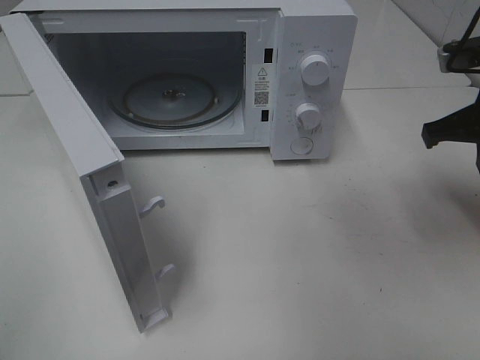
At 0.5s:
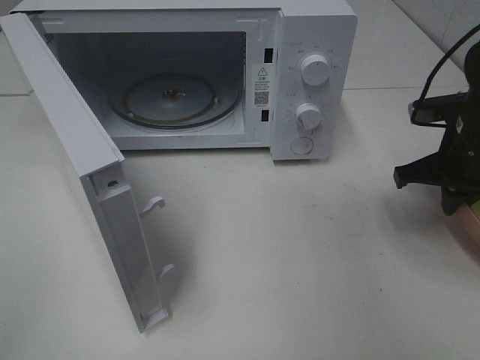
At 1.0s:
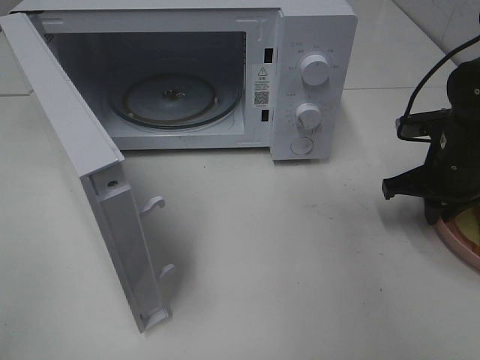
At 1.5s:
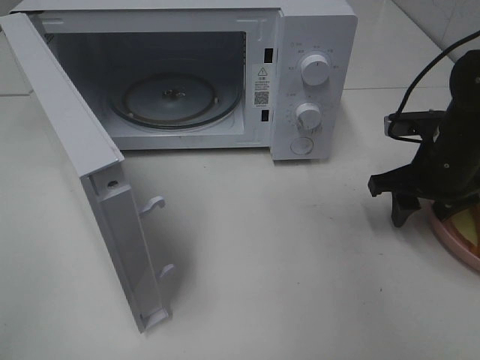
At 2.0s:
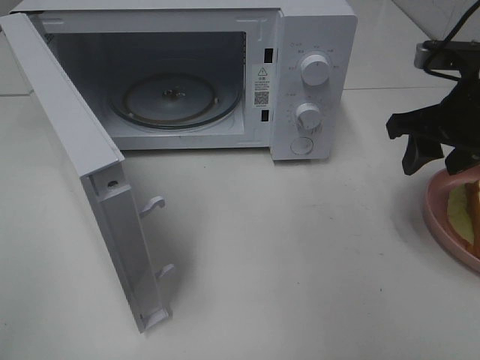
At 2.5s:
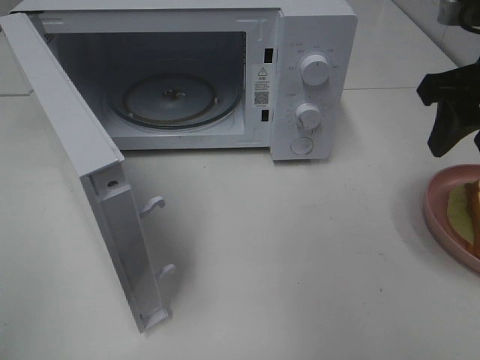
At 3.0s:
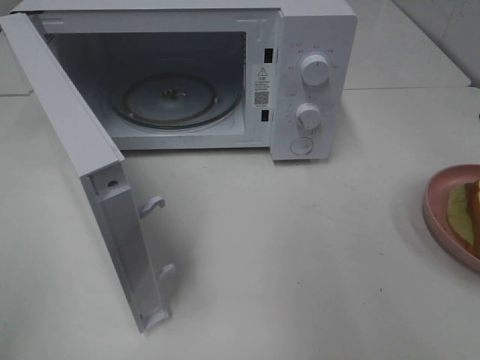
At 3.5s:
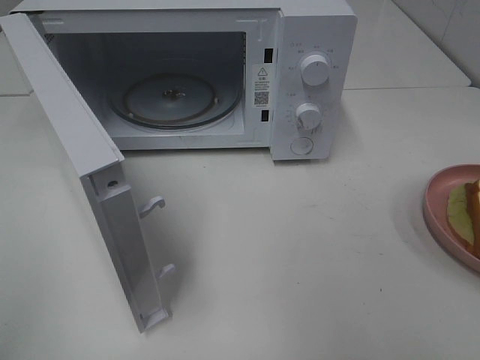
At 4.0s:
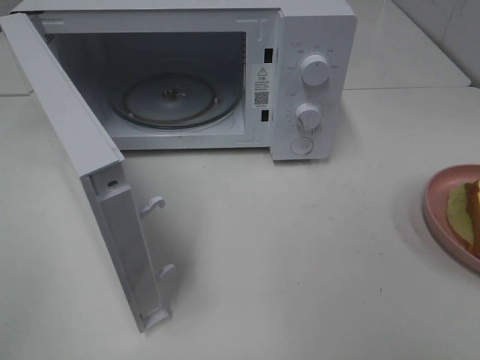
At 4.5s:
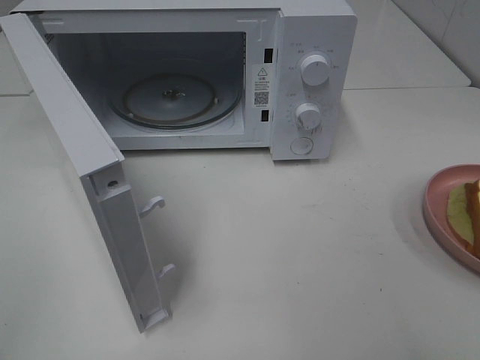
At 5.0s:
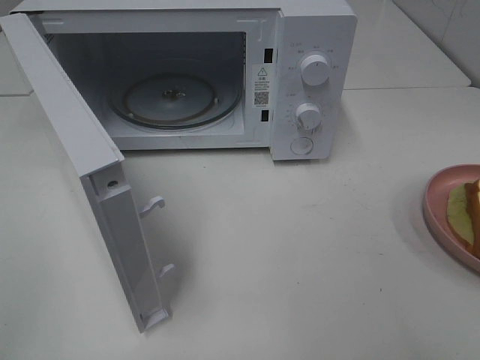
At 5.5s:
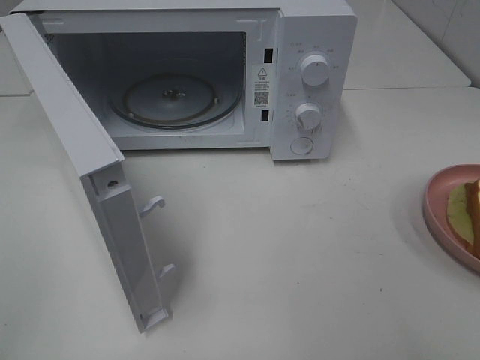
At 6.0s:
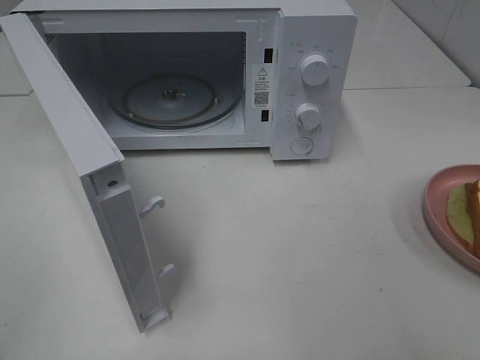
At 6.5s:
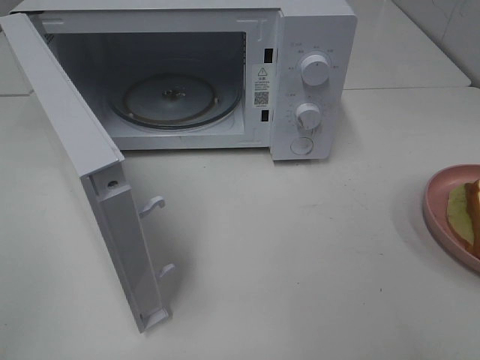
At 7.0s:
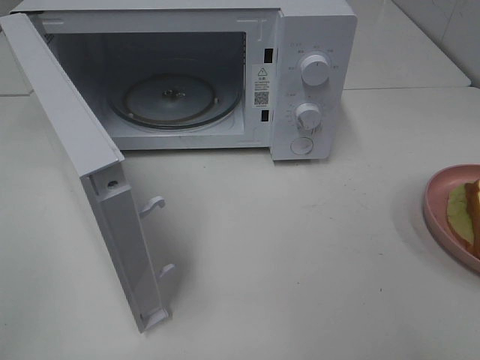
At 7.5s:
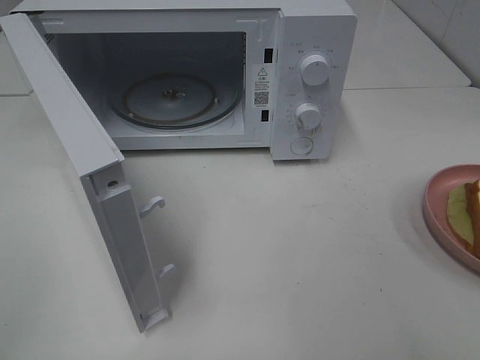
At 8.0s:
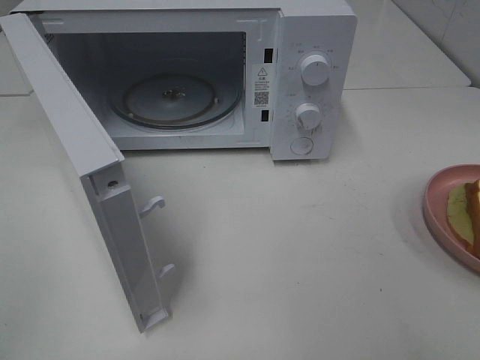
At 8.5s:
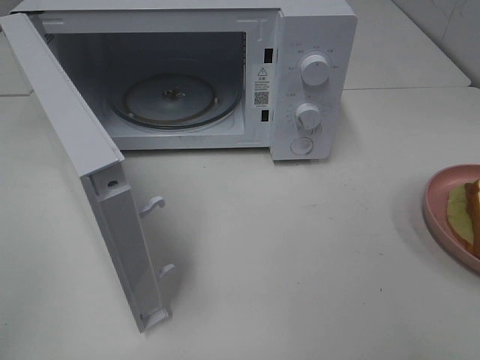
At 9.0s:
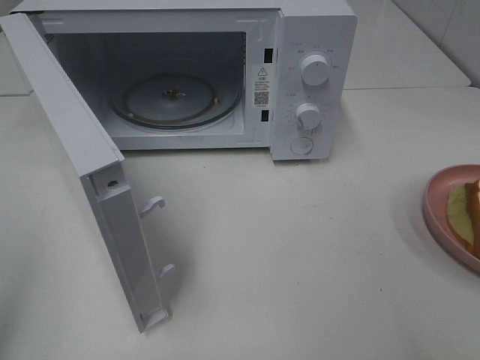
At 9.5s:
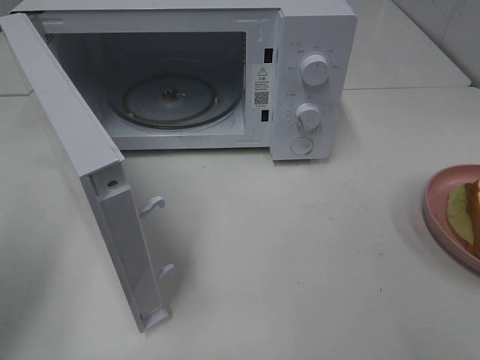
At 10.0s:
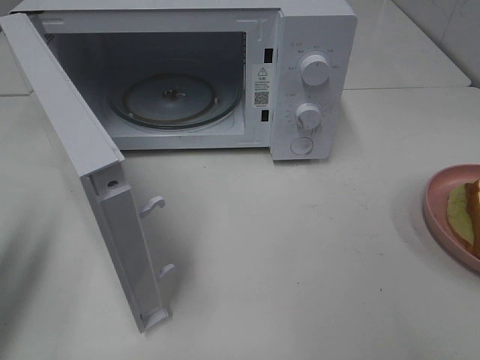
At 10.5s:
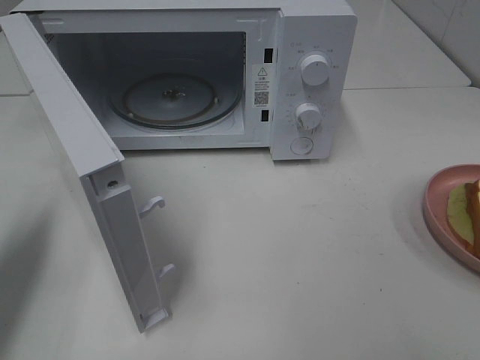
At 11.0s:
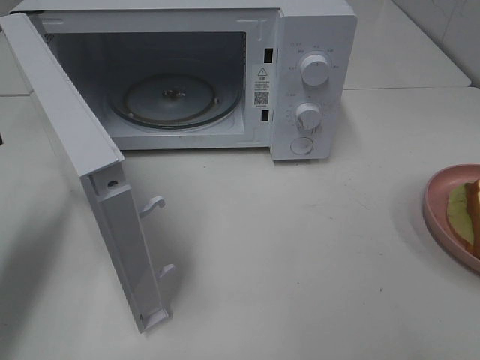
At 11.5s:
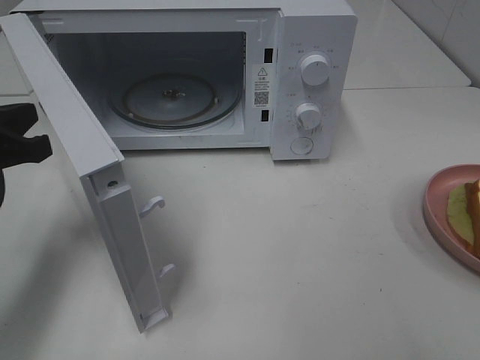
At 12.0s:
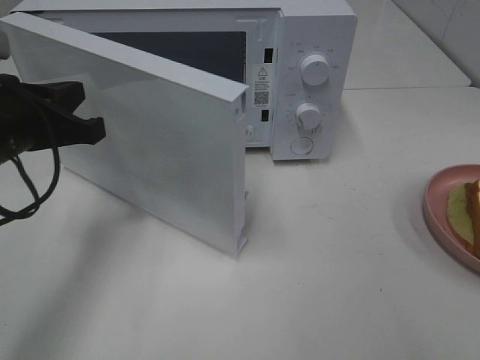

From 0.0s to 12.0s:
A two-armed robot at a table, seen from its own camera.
Task of the whole recording: Heat Sandwich.
Step, from 0.0s to 2.0s: Right hand: place the plate on the table.
From 0.0s to 2.0s: The right gripper goes downward and returns, roughly 10 cm each way, and opens.
From 2.0s to 4.0s: The right gripper goes some 25 cm backward.
From 6.0s to 8.0s: Both grippers stay about where they are.
From 8.0s to 10.0s: The left gripper heads forward, covering roughly 15 cm, and closes its fingers.
From 10.0s to 12.0s: The left gripper is displaced to the right, forward and downward by approximately 15 cm, and closes its fingers.

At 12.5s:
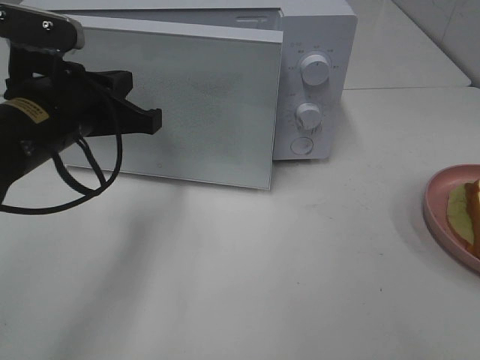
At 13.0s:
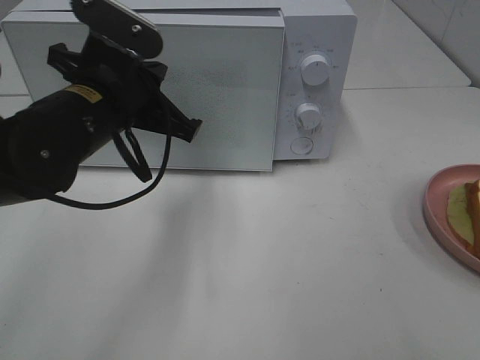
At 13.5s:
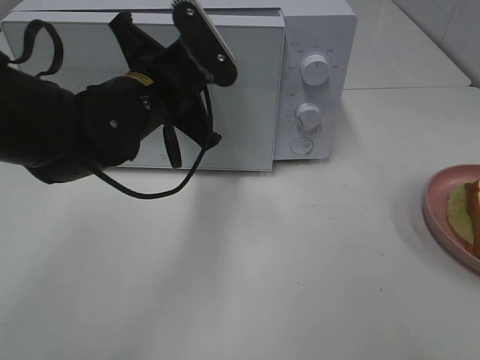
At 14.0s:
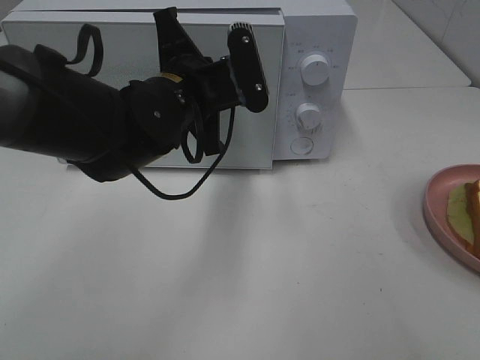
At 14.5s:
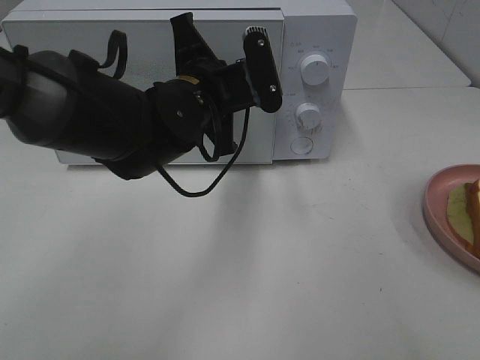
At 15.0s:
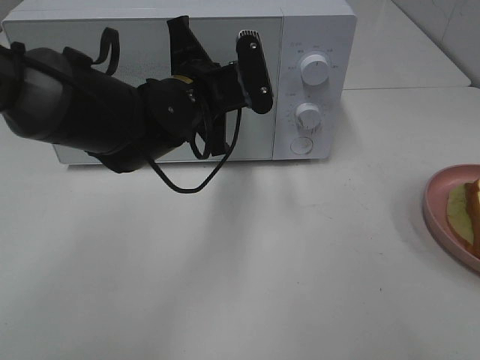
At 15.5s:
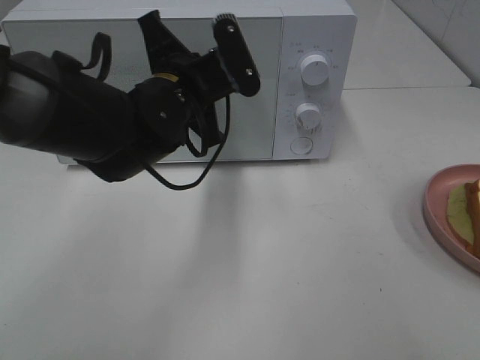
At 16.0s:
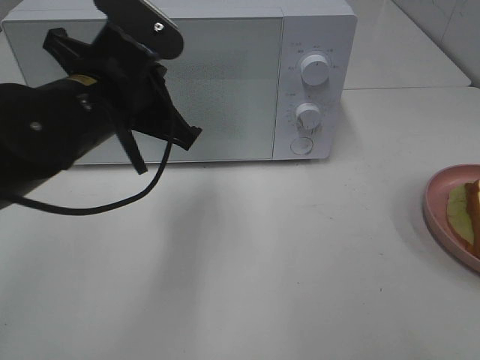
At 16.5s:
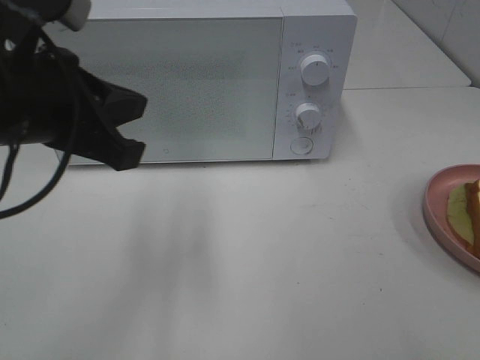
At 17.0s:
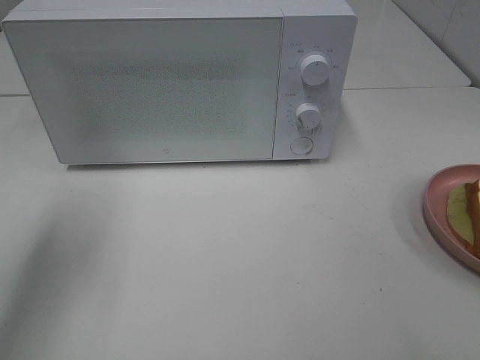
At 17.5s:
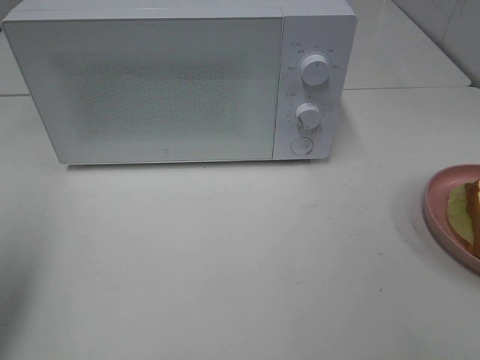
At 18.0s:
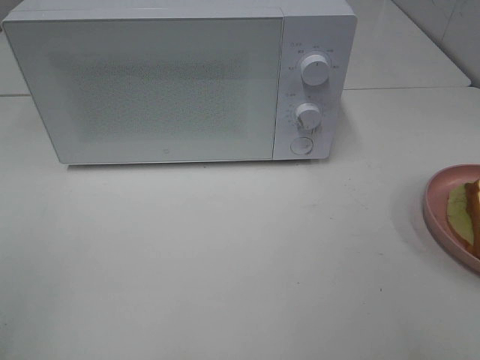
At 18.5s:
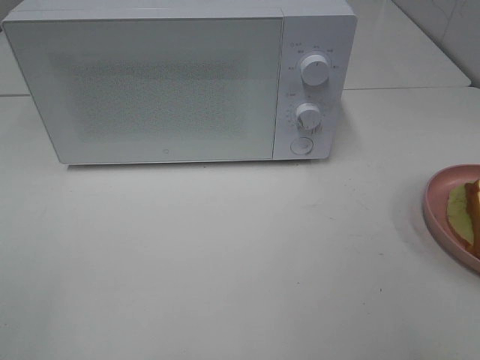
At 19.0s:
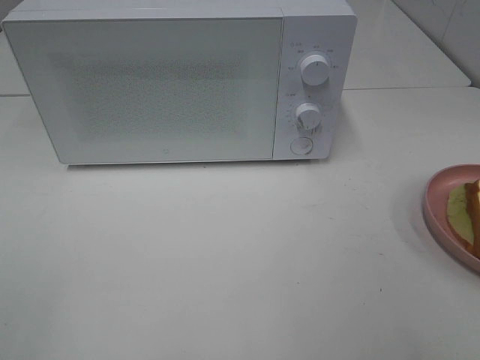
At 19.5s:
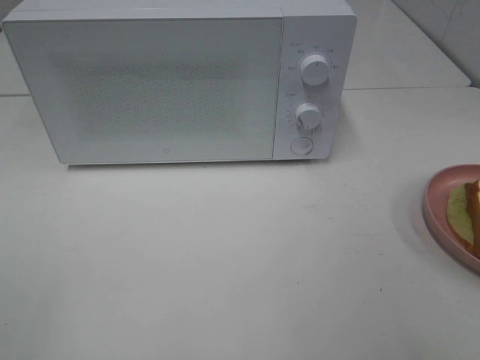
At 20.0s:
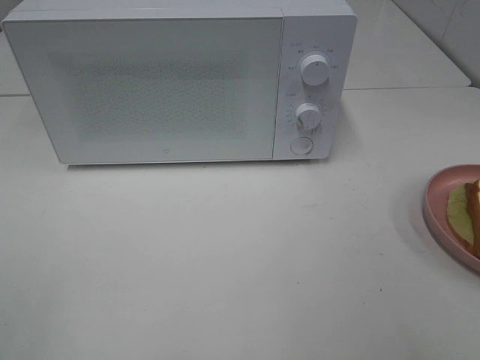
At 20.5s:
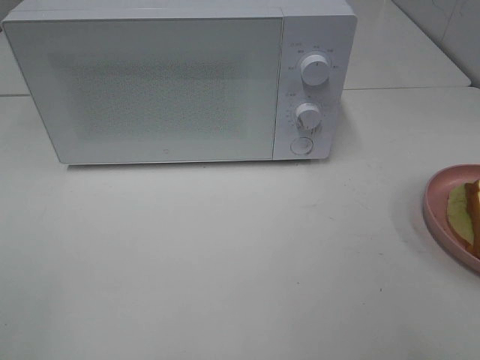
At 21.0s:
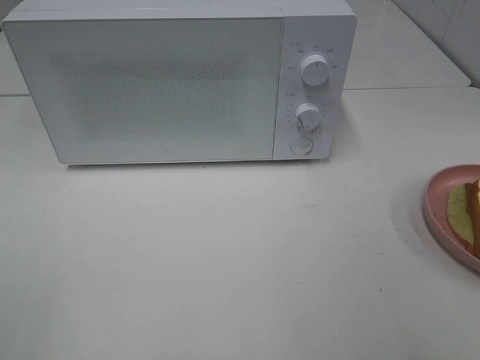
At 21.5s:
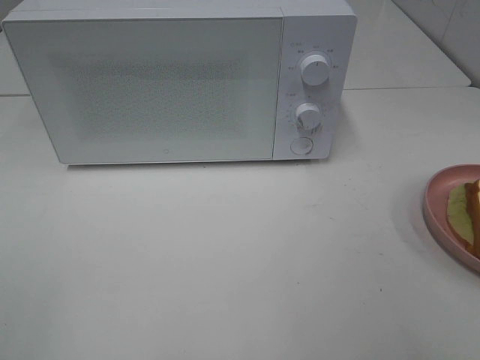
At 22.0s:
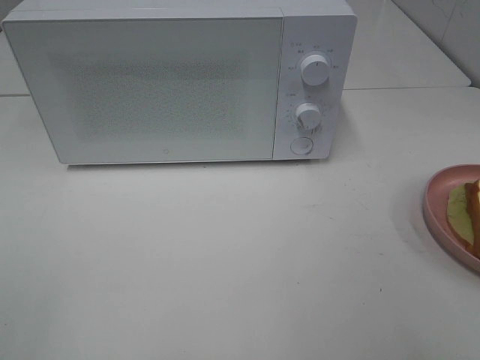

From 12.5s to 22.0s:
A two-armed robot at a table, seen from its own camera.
Task of the whole recording: Heat Sandwich.
Step, from 12.5s to 15.5s: Left hand: close the microwave door.
From 12.5s to 14.5s: The left gripper moves to the right and forward, about 15 cm.
From 14.5s to 16.5s: The left gripper heads to the left, backward and upward, covering approximately 20 cm.
From 16.5s to 18.0s: The left gripper travels backward and to the left by roughly 25 cm, and opens.
From 20.0s to 22.0s: The two grippers keep their place.

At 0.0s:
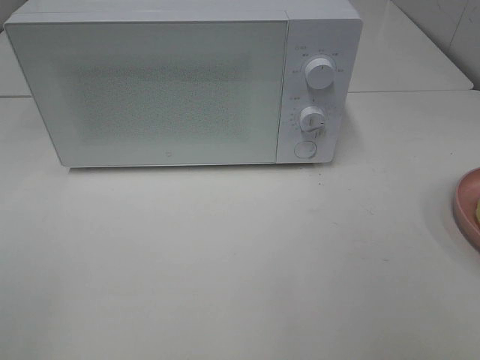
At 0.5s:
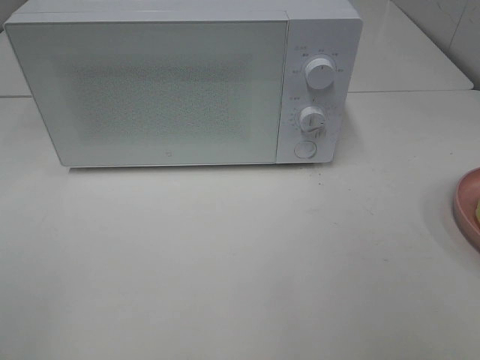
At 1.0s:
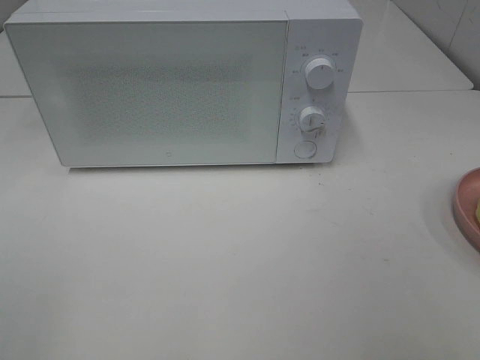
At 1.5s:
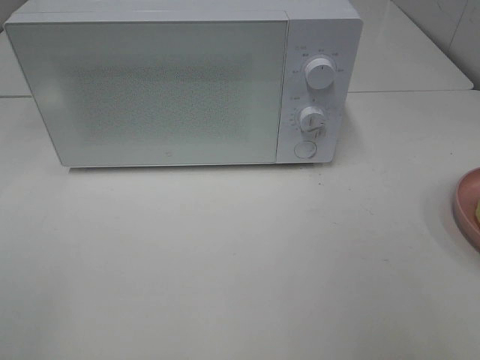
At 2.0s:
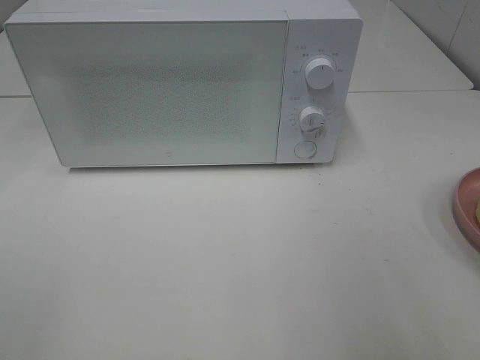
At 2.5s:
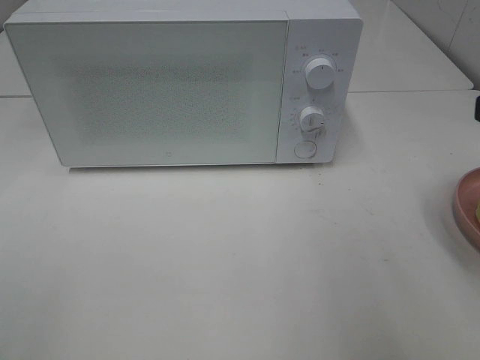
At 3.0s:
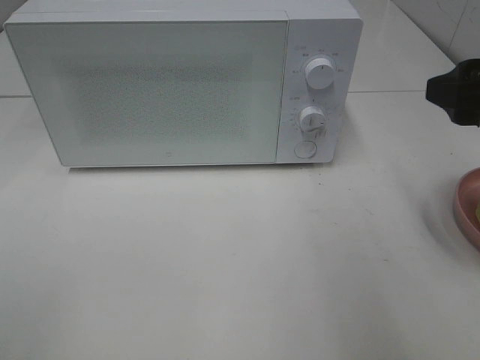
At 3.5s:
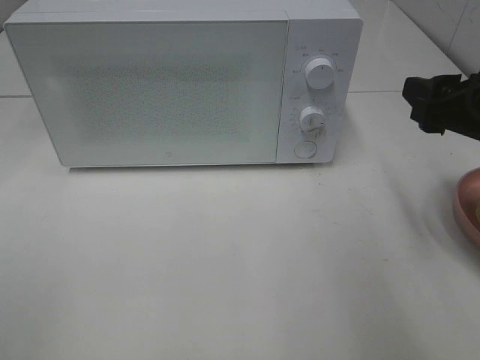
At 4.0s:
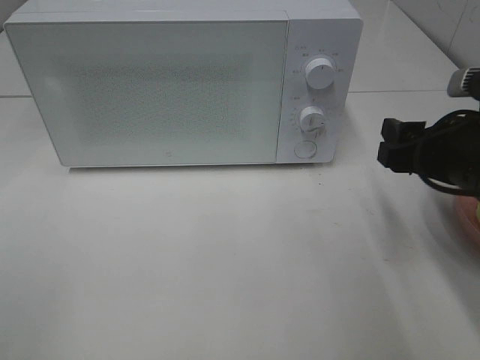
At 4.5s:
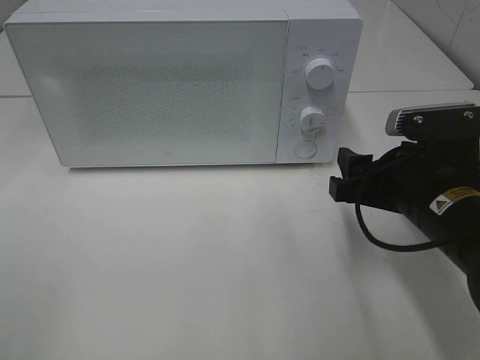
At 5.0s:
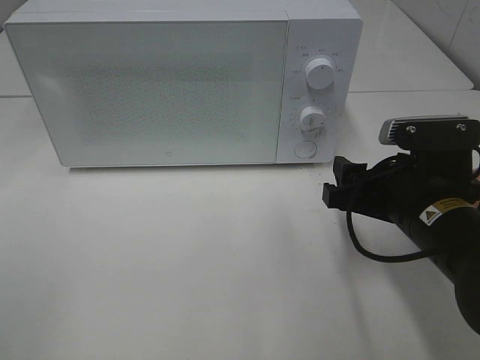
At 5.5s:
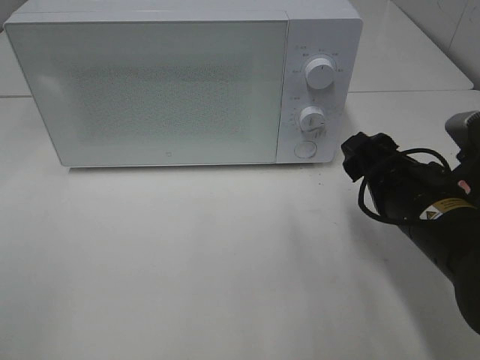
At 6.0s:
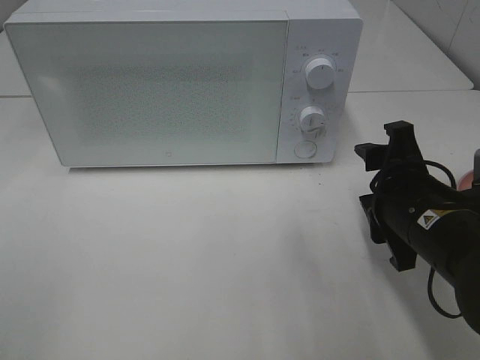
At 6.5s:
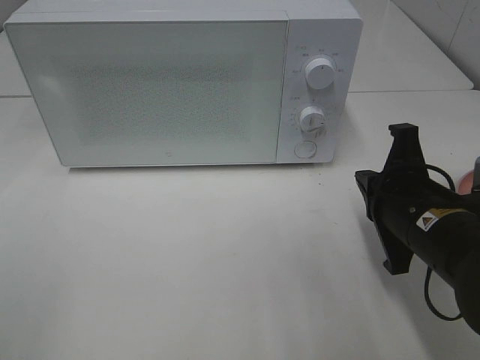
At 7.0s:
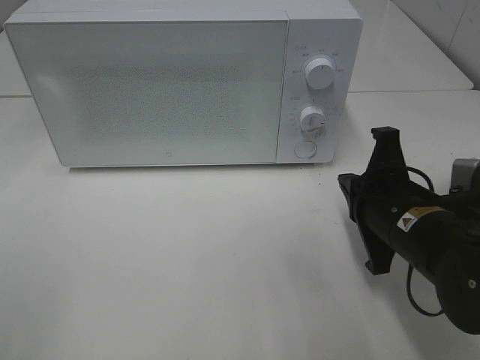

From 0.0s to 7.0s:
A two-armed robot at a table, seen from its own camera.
Task of the whole recording: Heat Sandwich.
From 2.0s to 3.5s: The right gripper moves forward and downward, approximately 15 cm.
From 3.5s to 5.0s: The right gripper heads downward and to the left, covering approximately 10 cm.
From 5.0s to 7.0s: The right gripper closes up.
